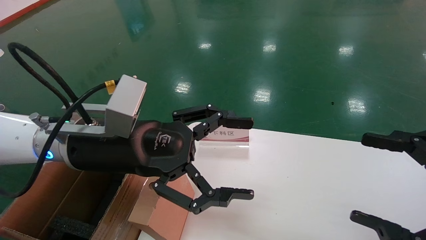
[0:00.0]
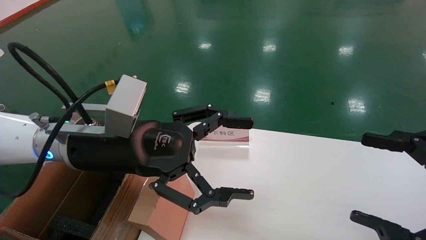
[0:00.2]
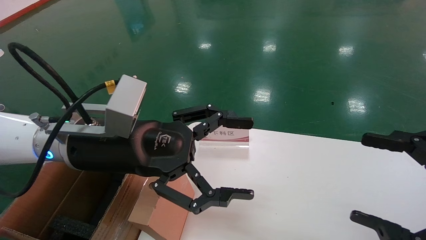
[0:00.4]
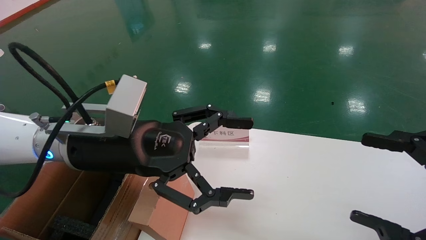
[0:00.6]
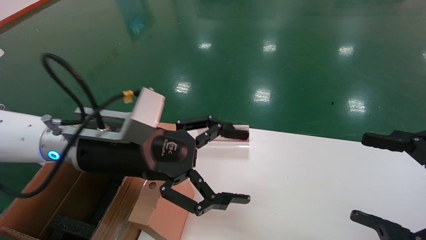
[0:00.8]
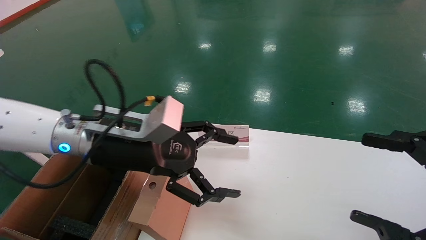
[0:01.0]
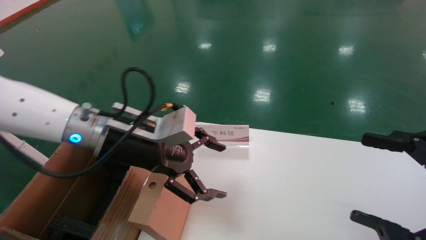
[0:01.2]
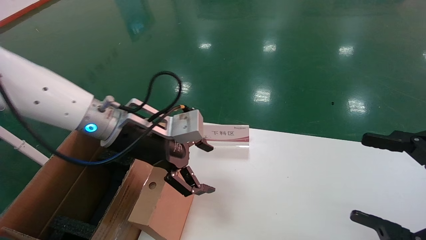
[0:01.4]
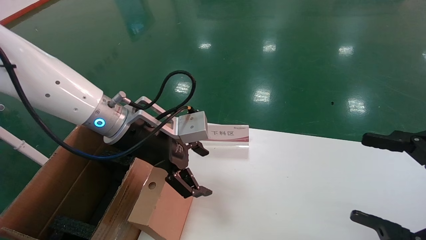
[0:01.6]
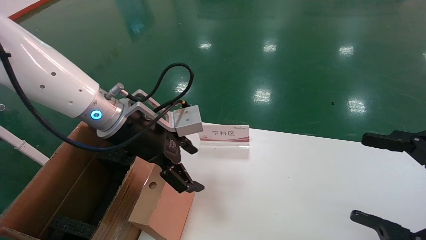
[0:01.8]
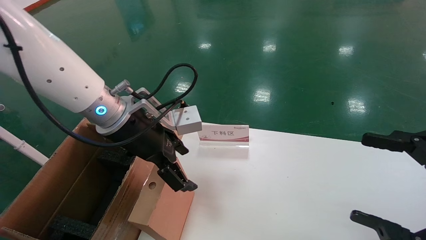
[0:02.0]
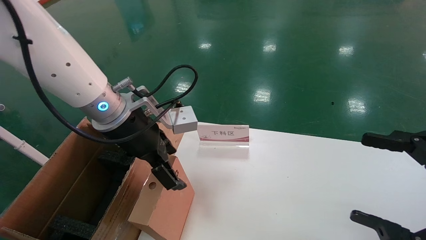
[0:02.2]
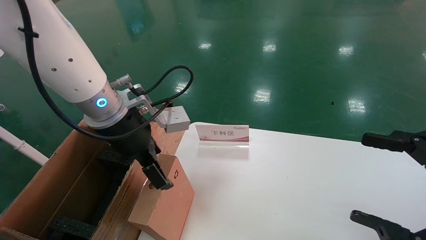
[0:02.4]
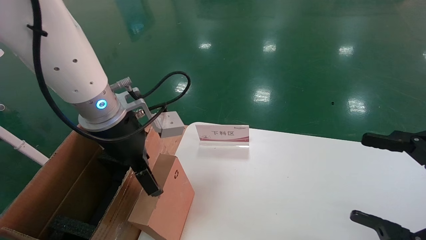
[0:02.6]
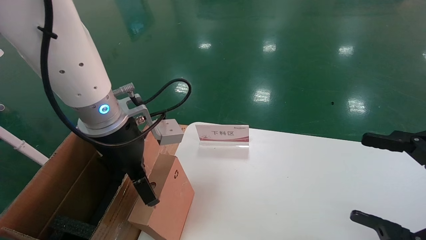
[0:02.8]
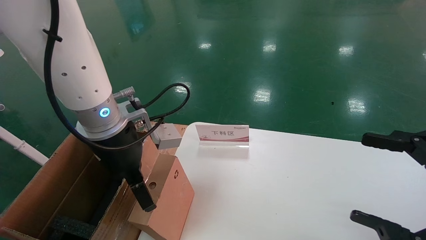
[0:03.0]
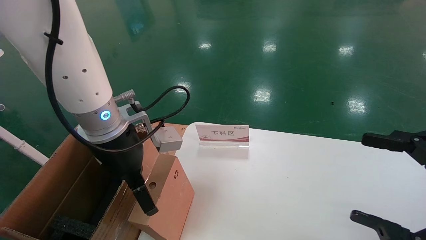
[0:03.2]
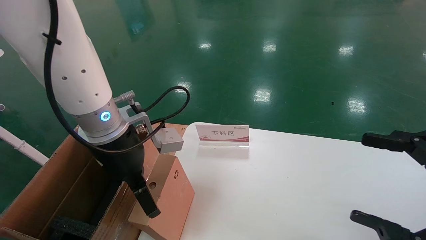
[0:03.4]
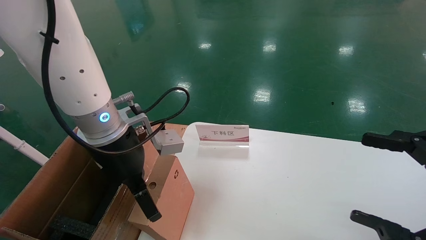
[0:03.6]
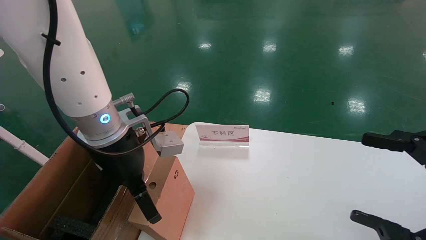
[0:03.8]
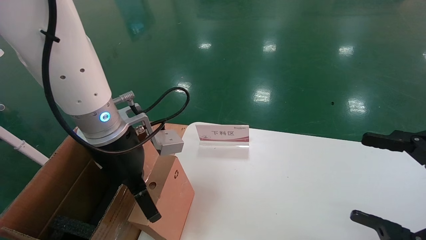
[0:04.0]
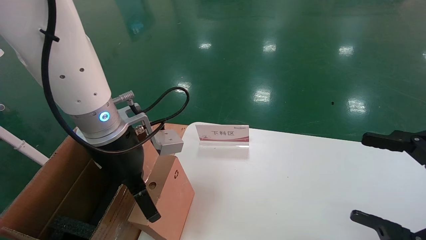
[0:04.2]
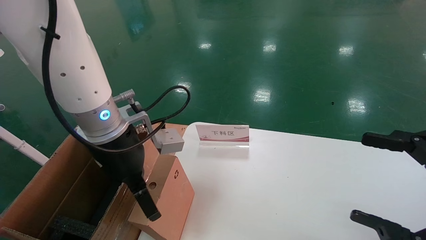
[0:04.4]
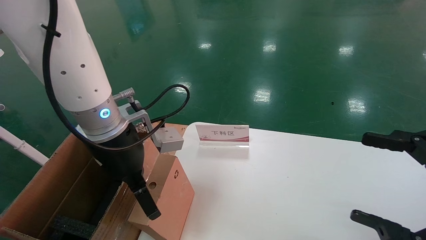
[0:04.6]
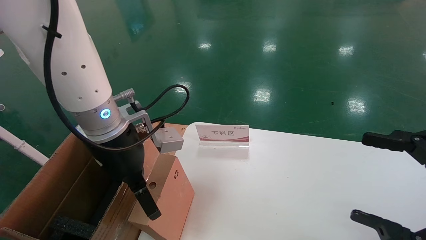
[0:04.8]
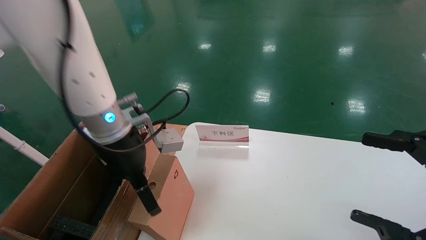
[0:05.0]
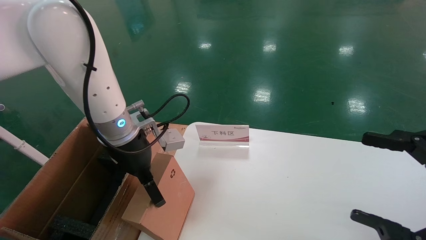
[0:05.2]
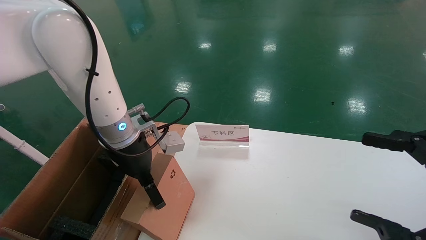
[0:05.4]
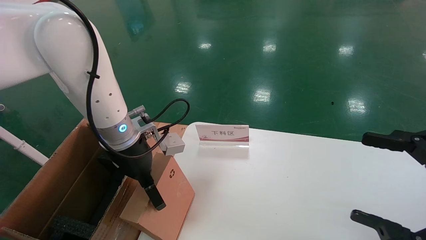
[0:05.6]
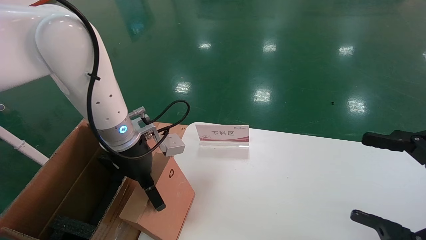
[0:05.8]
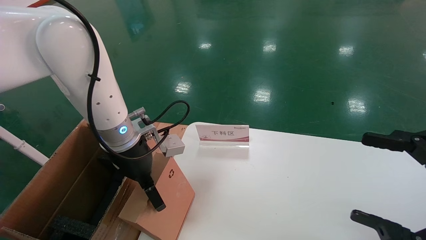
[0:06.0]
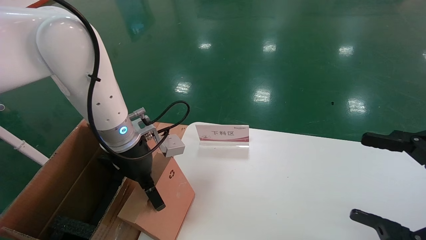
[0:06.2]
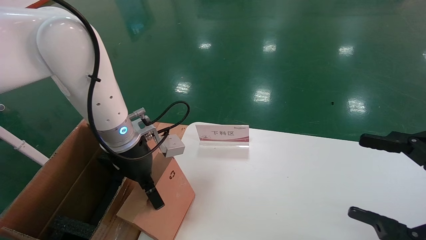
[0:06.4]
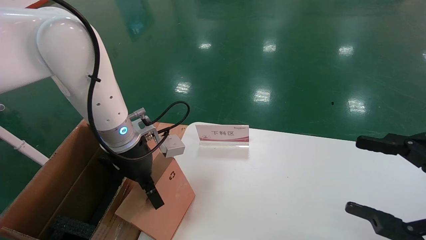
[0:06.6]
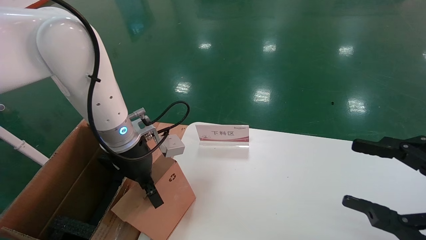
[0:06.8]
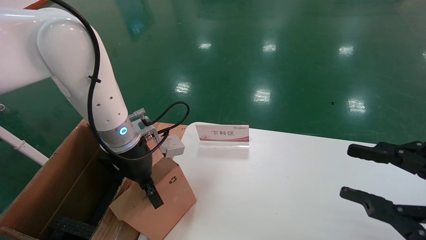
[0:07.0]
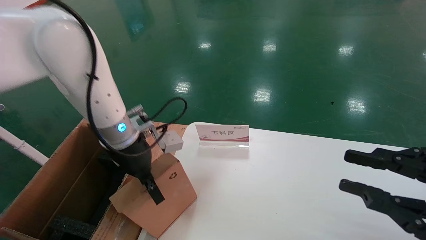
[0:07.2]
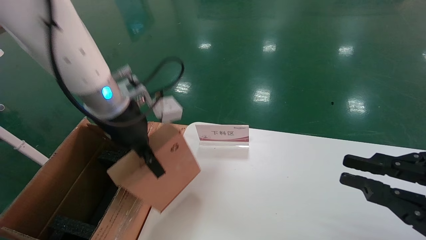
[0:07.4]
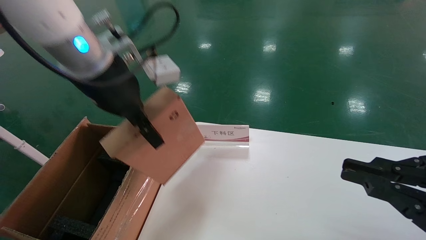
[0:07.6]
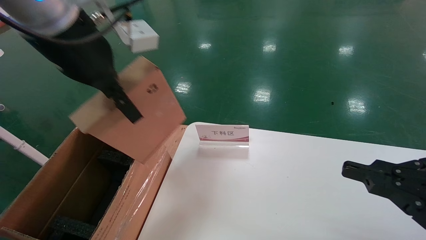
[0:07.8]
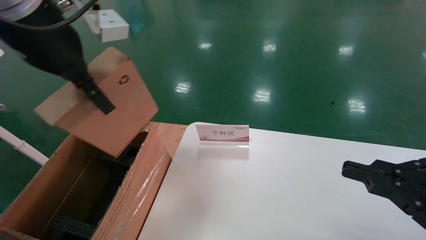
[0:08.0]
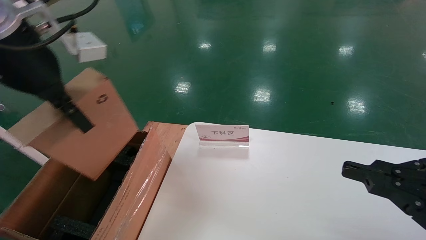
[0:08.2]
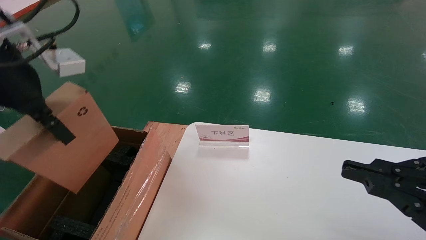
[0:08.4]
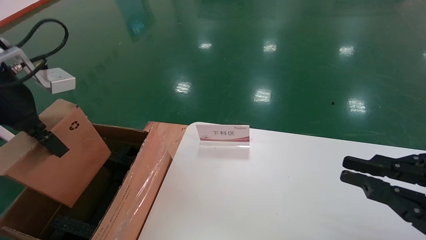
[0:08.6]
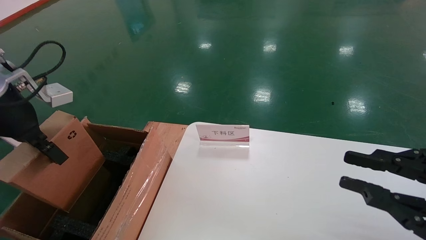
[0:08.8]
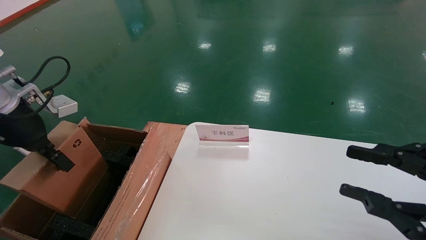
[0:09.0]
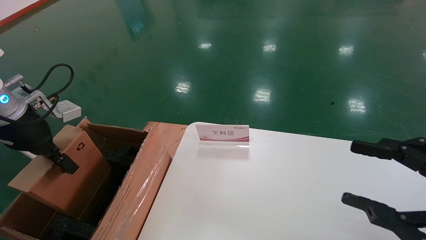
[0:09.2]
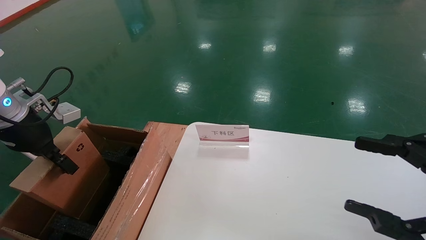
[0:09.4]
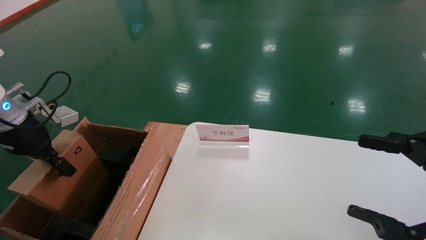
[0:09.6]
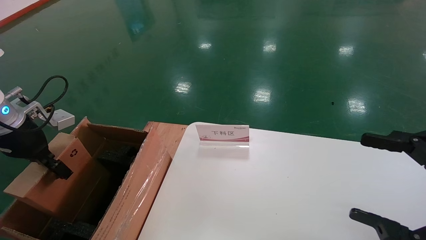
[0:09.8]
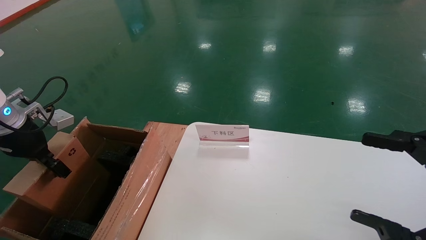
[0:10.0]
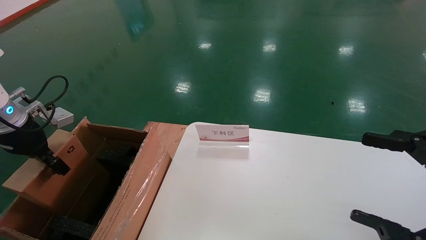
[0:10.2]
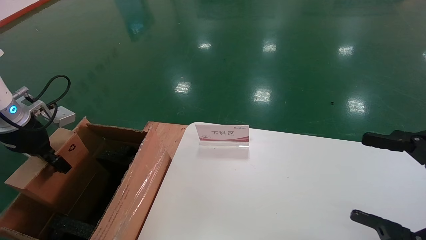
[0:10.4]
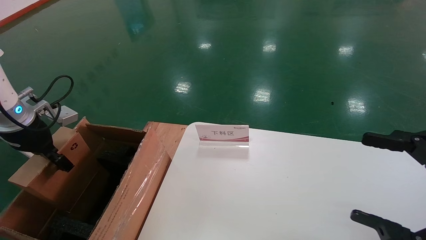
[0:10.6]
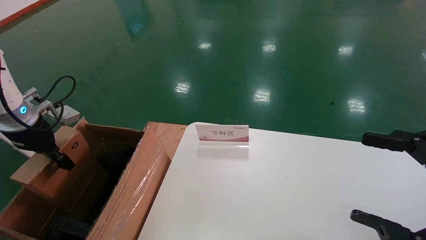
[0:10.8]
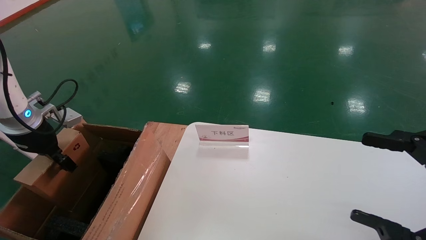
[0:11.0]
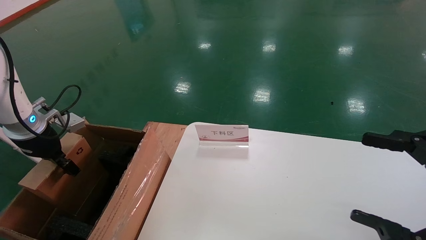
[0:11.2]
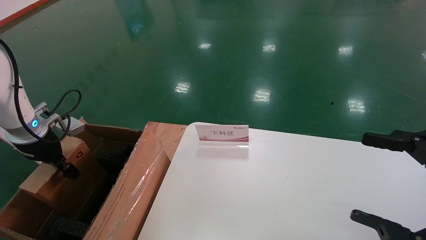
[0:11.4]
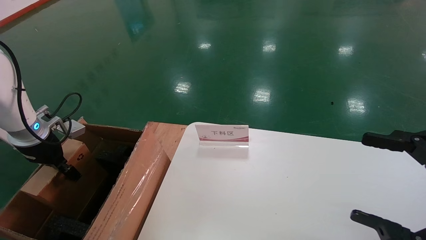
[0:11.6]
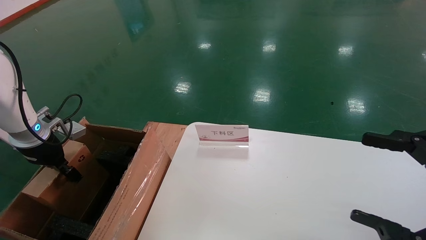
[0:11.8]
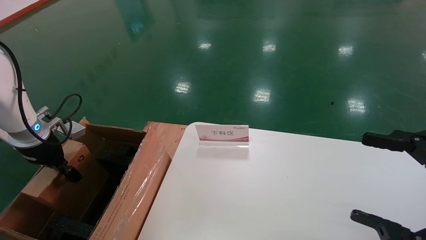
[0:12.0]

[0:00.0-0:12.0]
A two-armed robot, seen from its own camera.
Task of the whole recording: pick up the small cardboard box and load it into the large cardboard box.
Step, 0:01.0 to 0:07.0: Pick up the mouse and power cord box.
0:00.0 to 0:01.6: The left gripper is displaced forward by about 5 cm.
0:03.0 to 0:04.4: Both grippers stay put.
0:04.4 to 0:06.0: The left gripper moves forward and downward, about 5 cm.
0:06.0 to 0:07.6: The left gripper travels upward by approximately 15 cm, and closes; the right gripper closes.
0:07.6 to 0:09.0: The left gripper travels to the left and downward by about 20 cm.
0:09.0 to 0:10.4: The left gripper goes some 10 cm to the left and downward. The right gripper opens its fingers.
0:10.4 to 0:12.0: The left gripper heads downward, covering approximately 5 cm.

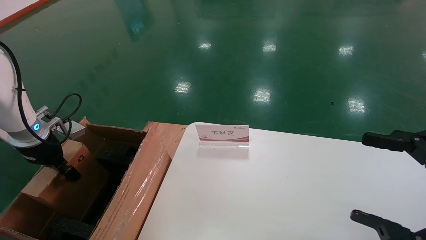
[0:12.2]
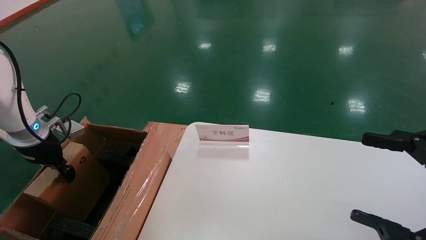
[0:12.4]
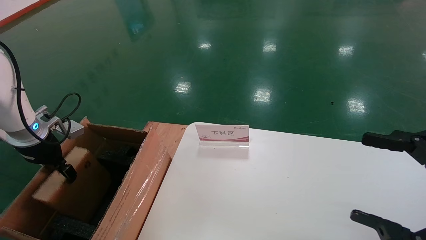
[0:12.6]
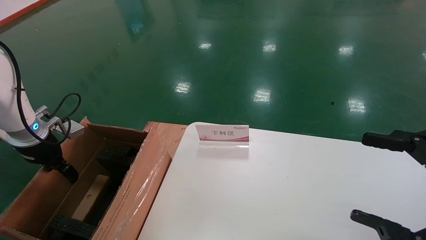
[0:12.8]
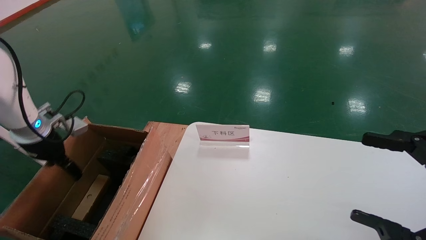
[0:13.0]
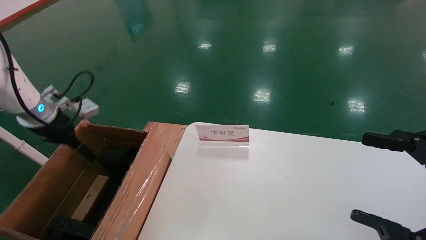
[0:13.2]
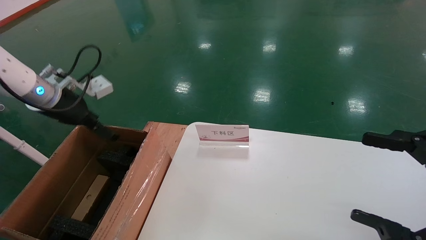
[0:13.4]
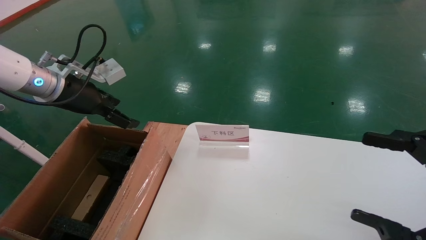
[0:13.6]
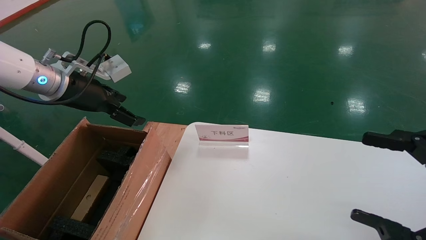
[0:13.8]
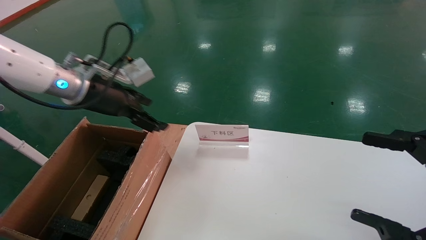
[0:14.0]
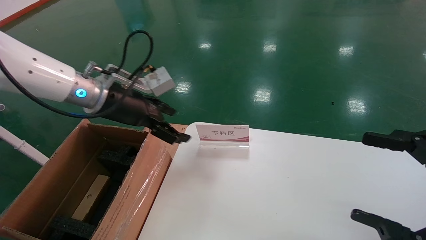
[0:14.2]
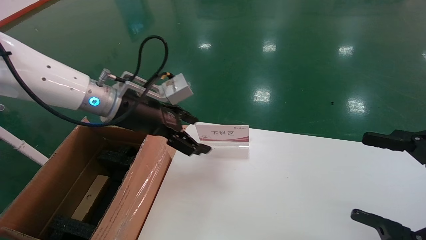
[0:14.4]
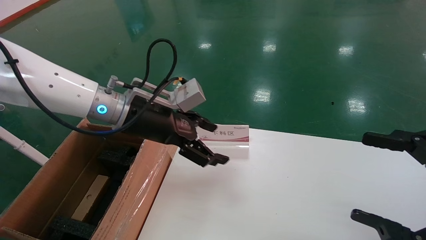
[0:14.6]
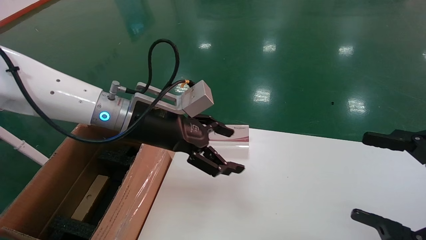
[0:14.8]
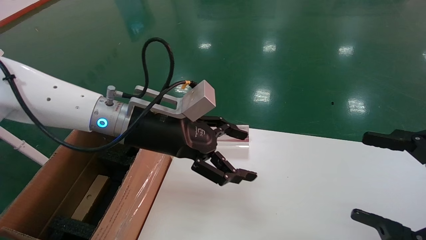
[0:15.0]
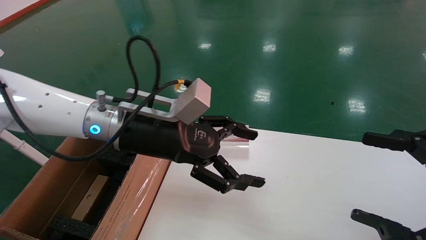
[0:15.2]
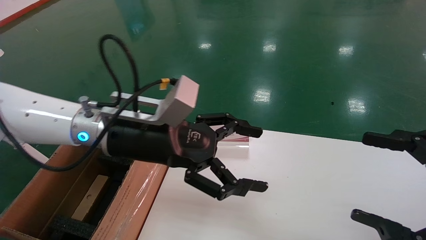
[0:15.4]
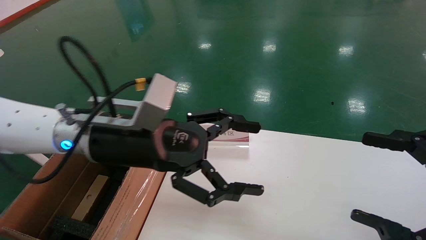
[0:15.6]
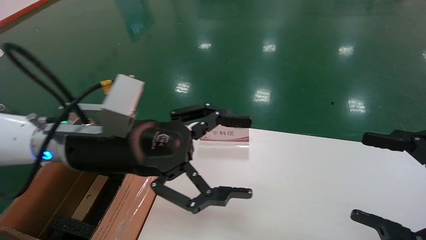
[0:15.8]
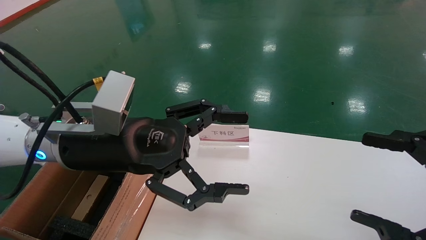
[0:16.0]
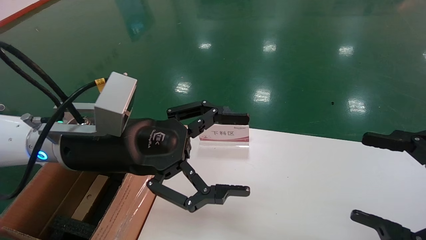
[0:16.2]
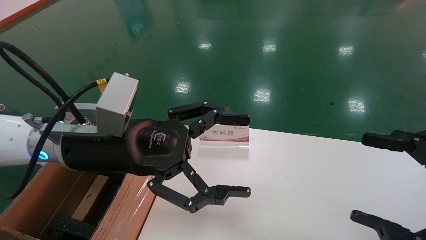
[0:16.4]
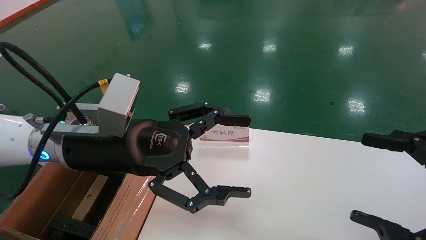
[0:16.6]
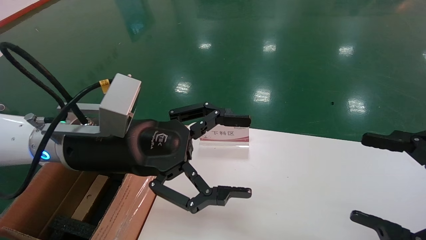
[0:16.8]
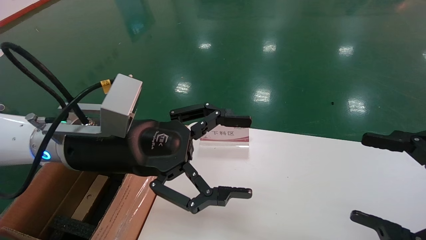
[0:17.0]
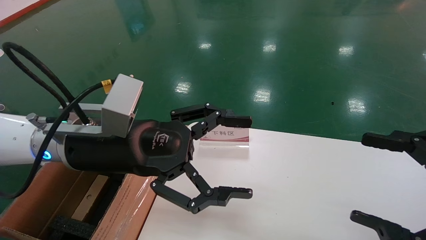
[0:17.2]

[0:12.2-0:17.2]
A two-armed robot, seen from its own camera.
Task of the whole recording: pick up the small cardboard box and load it into the large cardboard box.
0:12.2 to 0:13.8: The left gripper goes roughly 15 cm to the right and upward, and opens.
0:13.8 to 0:15.6: The left gripper goes approximately 15 cm to the right and backward.
0:15.6 to 0:17.2: The grippers move only a little.
